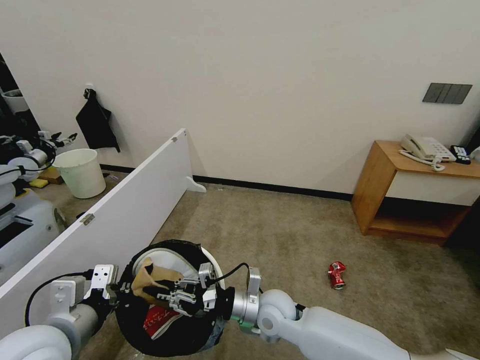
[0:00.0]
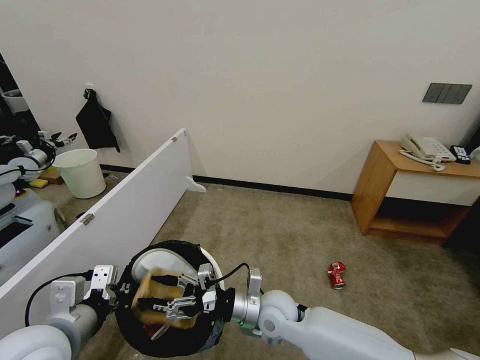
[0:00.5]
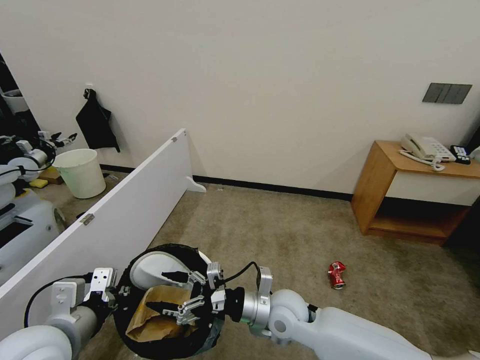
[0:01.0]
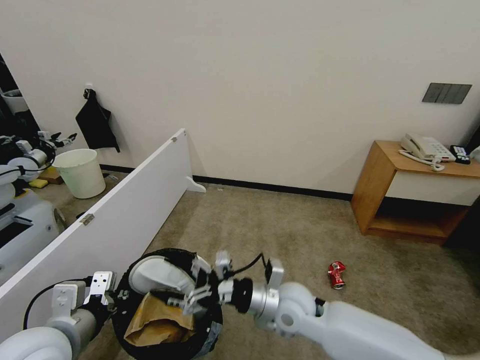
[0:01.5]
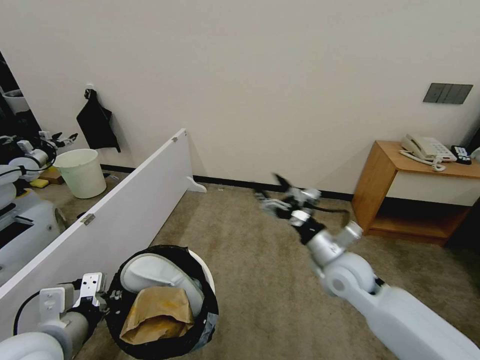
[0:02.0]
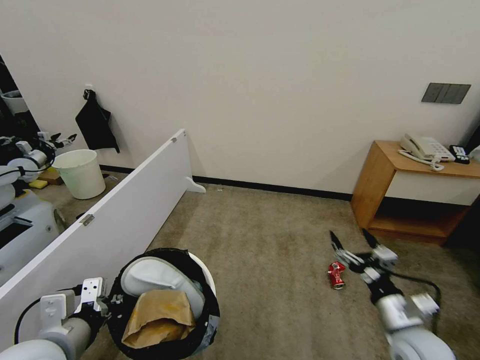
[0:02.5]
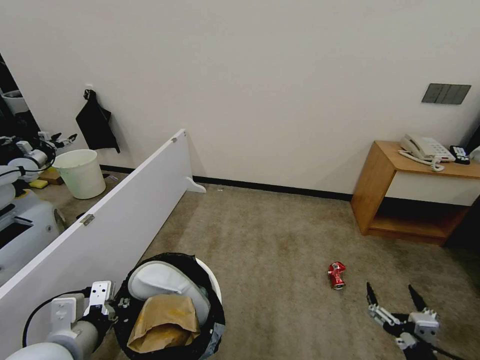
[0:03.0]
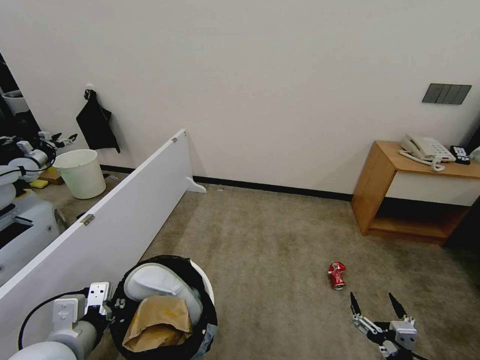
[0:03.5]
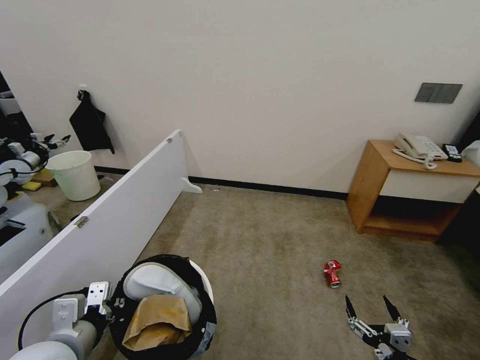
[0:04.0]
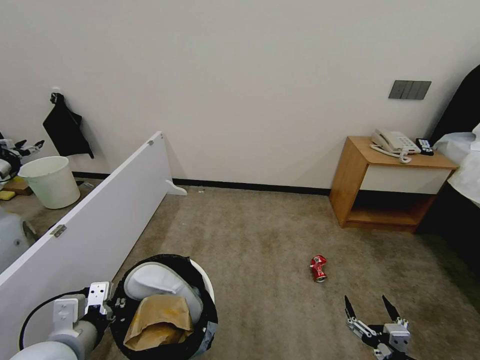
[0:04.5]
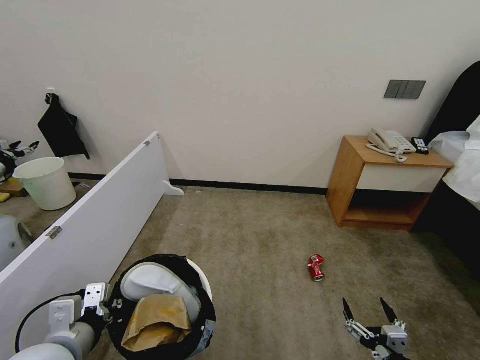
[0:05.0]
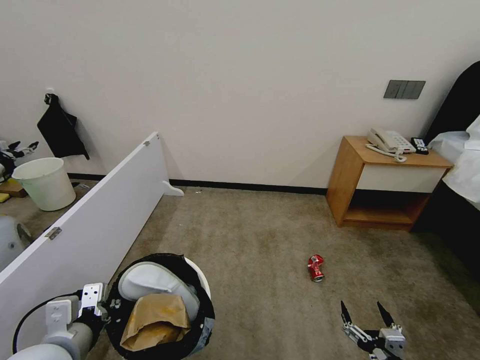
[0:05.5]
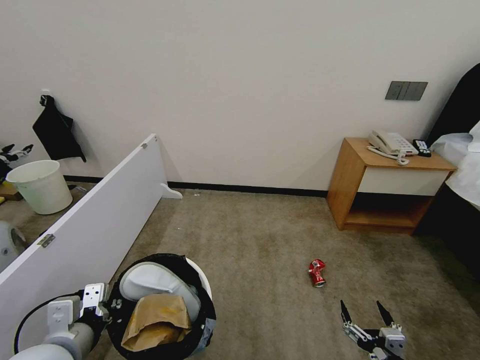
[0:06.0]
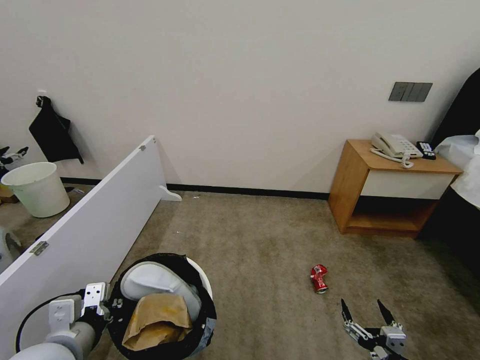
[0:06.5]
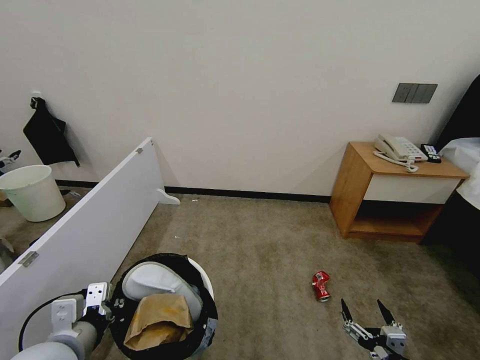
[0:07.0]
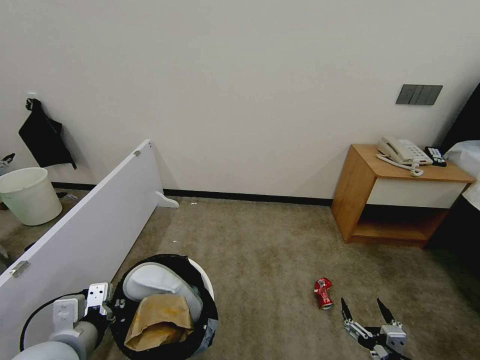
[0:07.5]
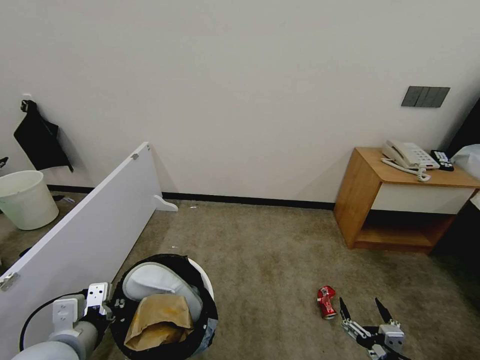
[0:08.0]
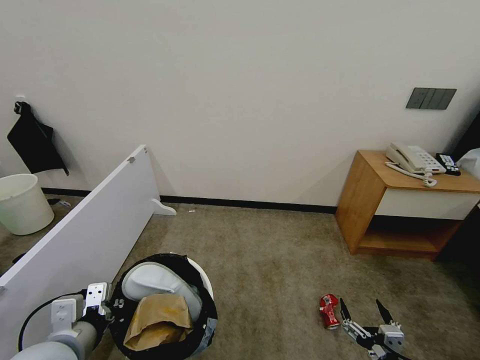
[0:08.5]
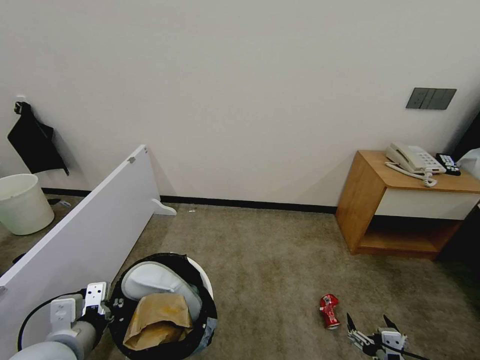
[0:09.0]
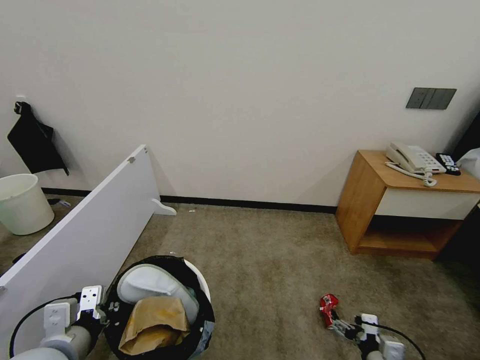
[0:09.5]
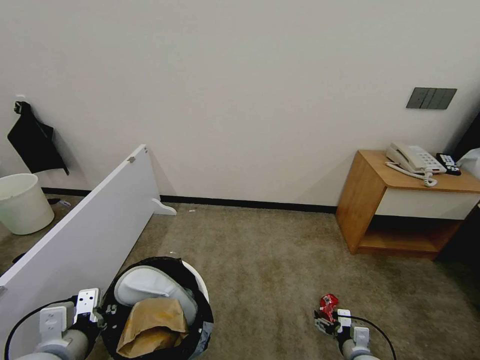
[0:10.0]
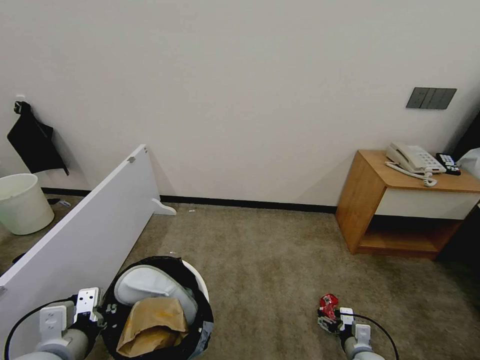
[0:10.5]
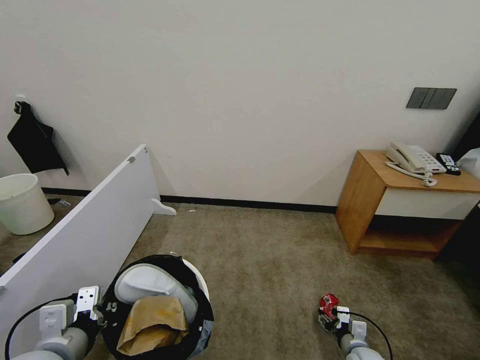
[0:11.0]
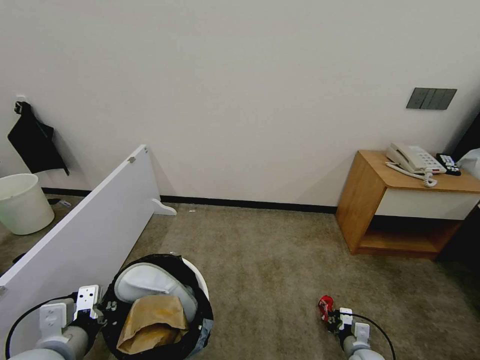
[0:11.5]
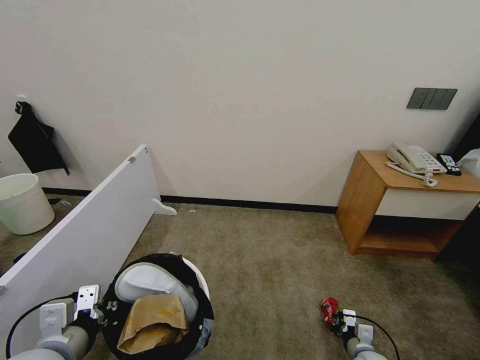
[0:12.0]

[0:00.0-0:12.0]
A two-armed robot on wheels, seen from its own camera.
Task of the whole recording: Pick up the trash bin, then pick up the garbage from the floor and place it into the trash bin.
0:00.0 to 0:02.0: The right gripper moves to the right and upward, about 15 cm, and opens.
0:02.0 to 0:04.0: The right gripper goes some 35 cm backward, downward and to the right.
0:06.0 to 0:08.0: Both grippers stay put.
0:08.0 to 0:10.0: The right gripper heads forward and downward, covering roughly 15 cm.
0:10.0 to 0:12.0: The right gripper closes its fingers.

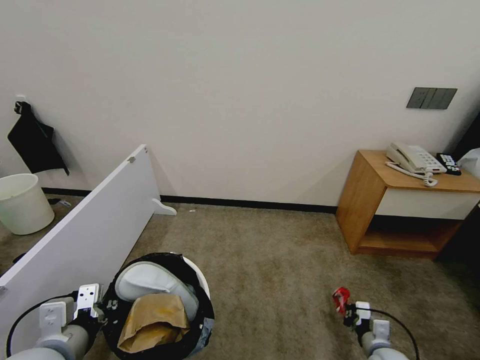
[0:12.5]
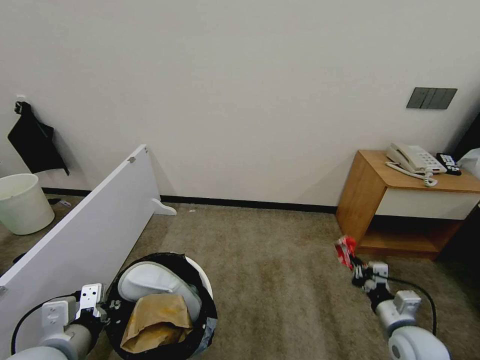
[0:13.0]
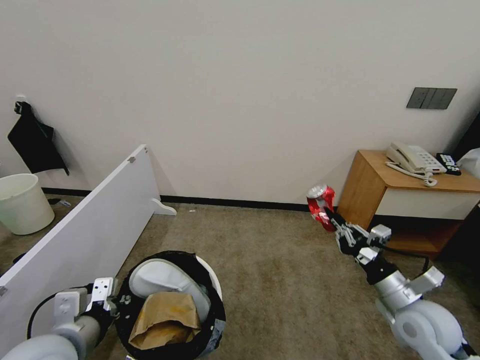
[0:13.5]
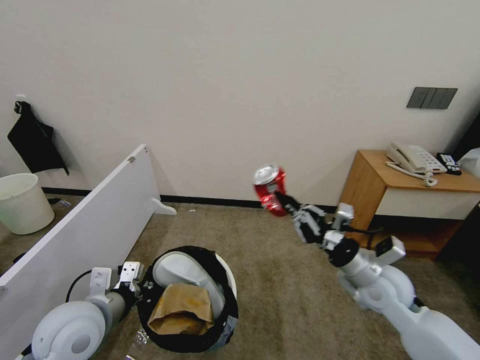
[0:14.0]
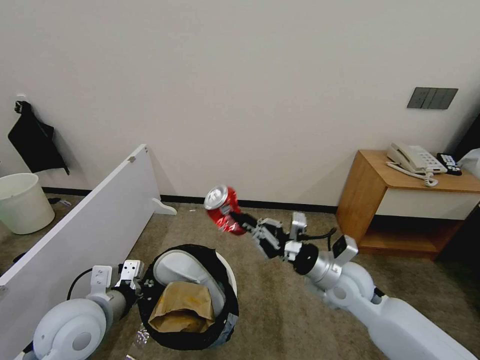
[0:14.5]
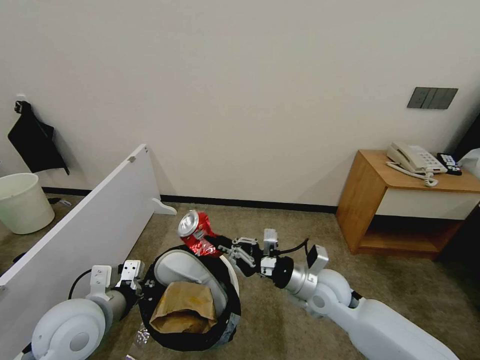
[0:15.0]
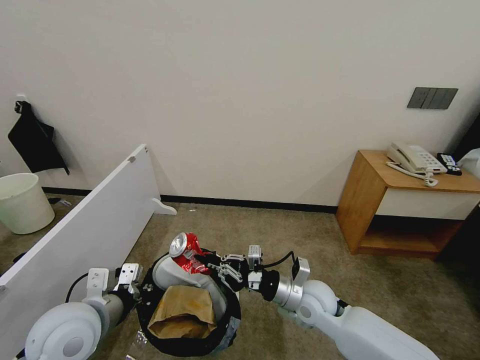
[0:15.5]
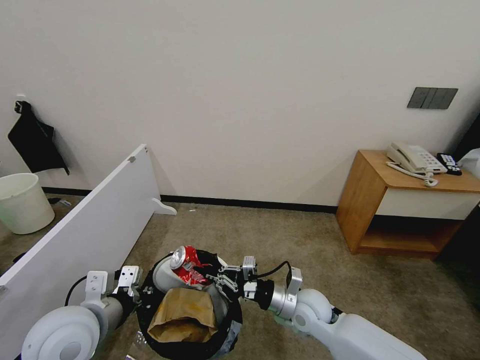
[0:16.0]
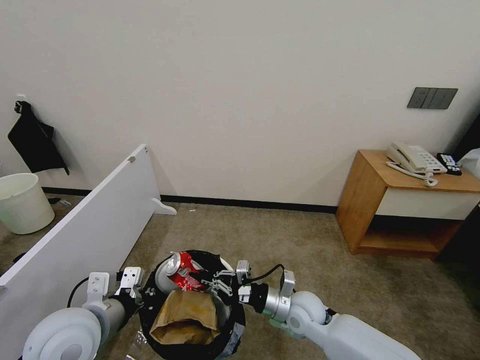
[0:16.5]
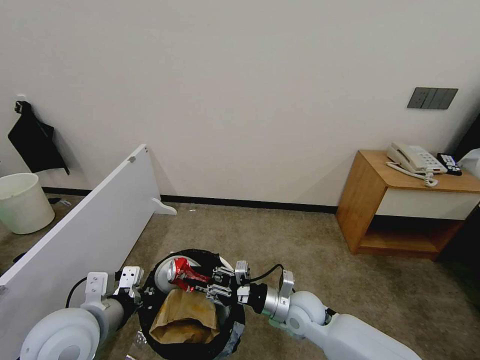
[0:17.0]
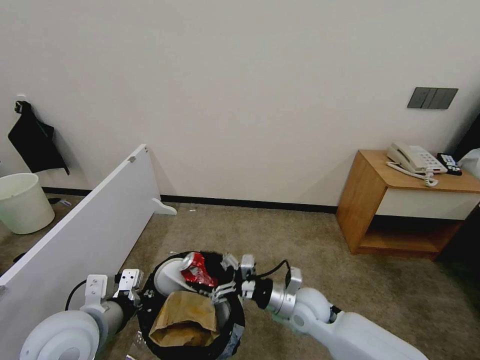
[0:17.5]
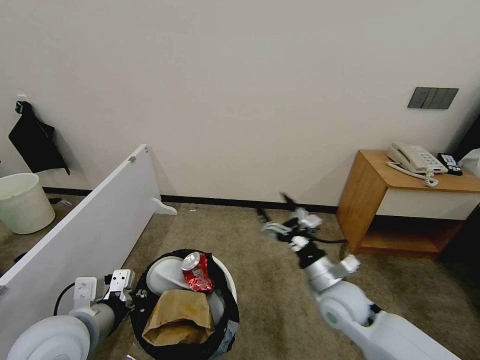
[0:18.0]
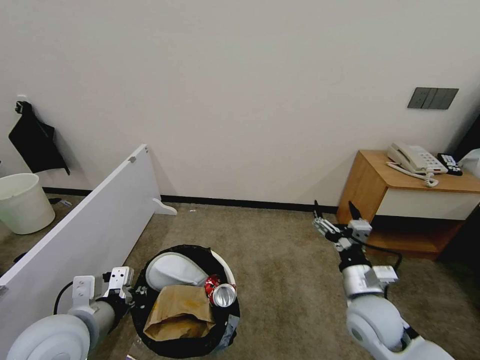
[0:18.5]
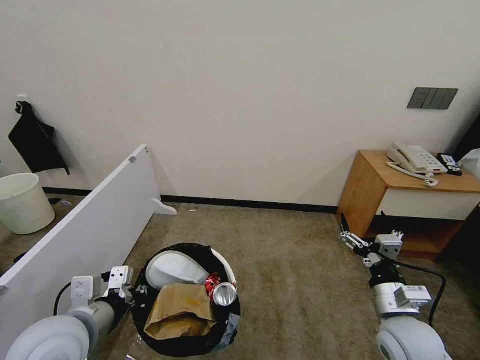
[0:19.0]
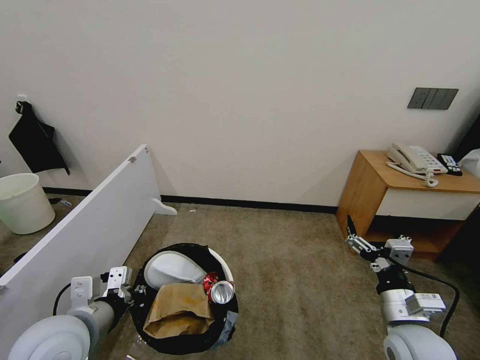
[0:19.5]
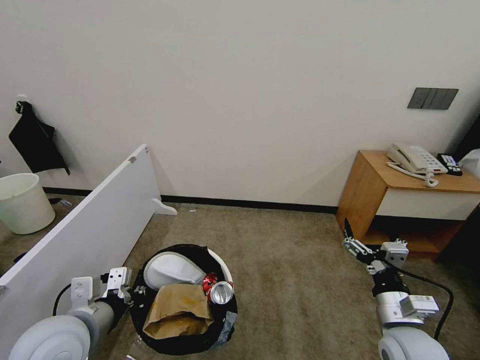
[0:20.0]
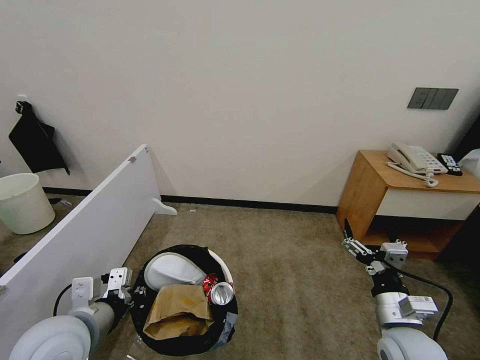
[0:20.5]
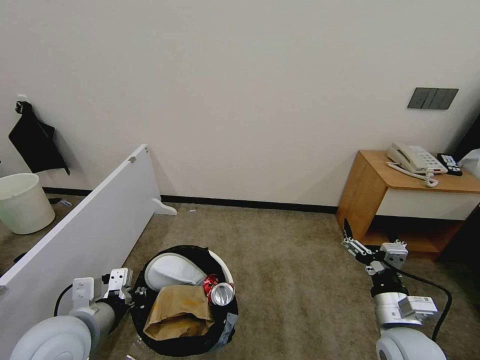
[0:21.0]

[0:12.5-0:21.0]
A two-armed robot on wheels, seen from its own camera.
Task of the whole recording: Pick up the trash bin, then pick up the garbage from the floor and place it into the trash bin.
0:12.5 to 0:14.5: The right gripper goes roughly 30 cm upward and to the left. Meanwhile the left gripper travels forward by roughly 5 cm.
0:14.5 to 0:16.5: The right gripper goes approximately 15 cm downward and to the left.
0:16.5 to 0:19.0: The right gripper travels to the right, backward and upward by some 20 cm, and opens.
0:19.0 to 0:21.0: The grippers move only a little.
